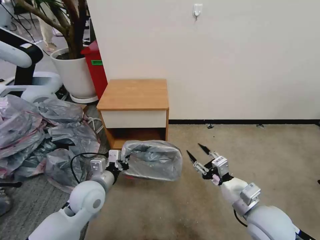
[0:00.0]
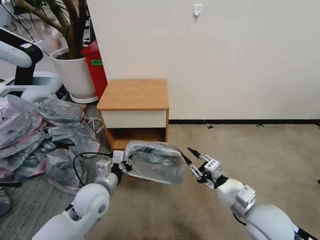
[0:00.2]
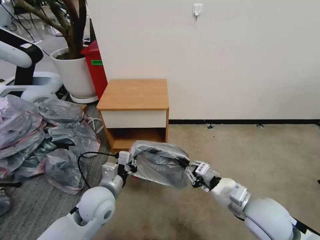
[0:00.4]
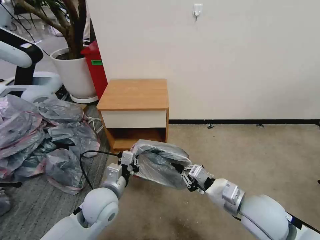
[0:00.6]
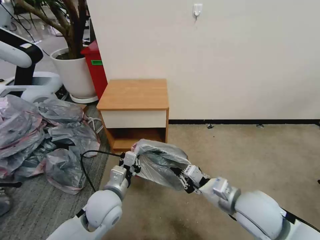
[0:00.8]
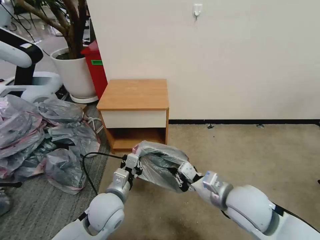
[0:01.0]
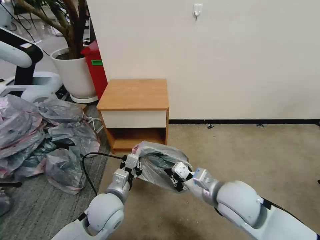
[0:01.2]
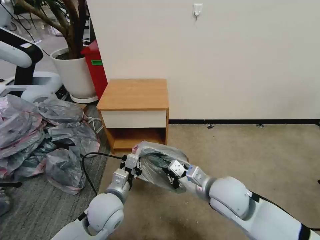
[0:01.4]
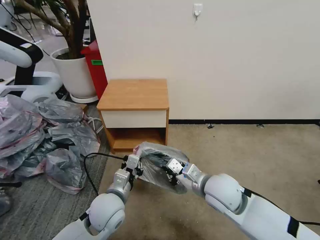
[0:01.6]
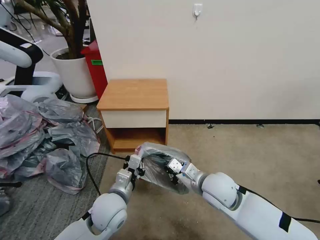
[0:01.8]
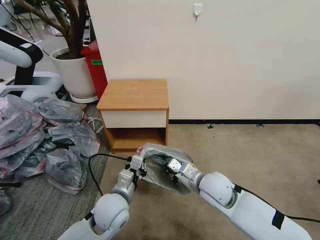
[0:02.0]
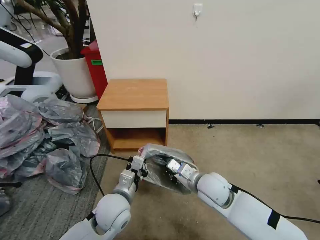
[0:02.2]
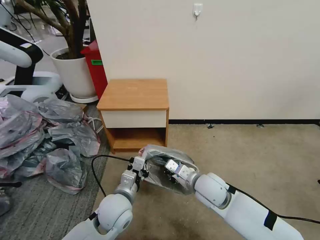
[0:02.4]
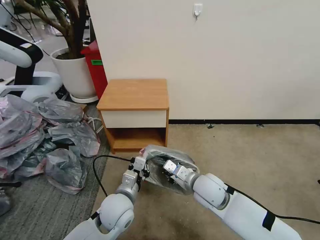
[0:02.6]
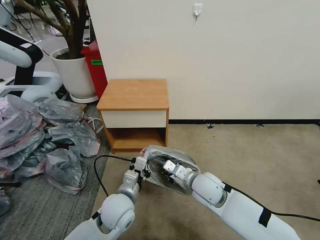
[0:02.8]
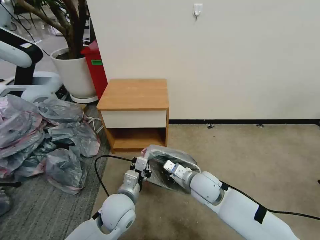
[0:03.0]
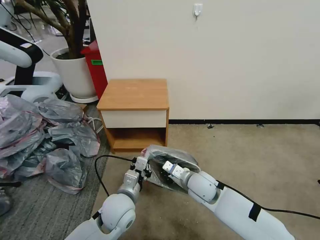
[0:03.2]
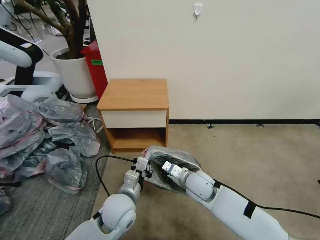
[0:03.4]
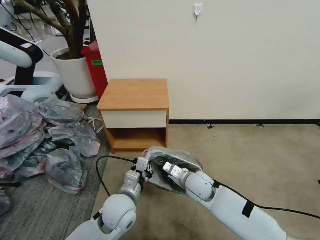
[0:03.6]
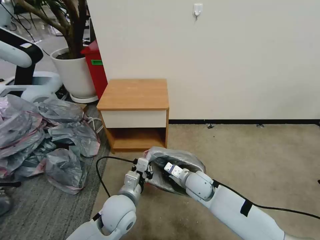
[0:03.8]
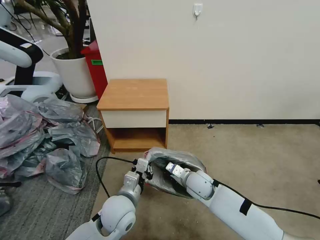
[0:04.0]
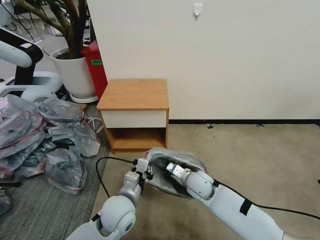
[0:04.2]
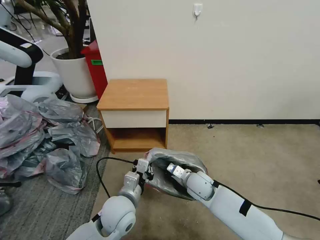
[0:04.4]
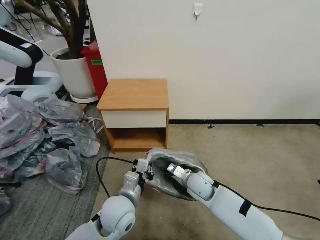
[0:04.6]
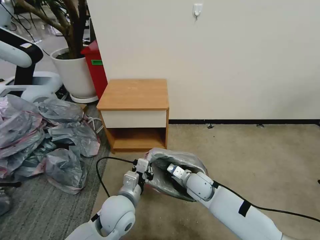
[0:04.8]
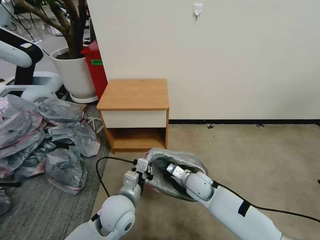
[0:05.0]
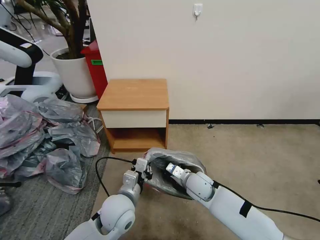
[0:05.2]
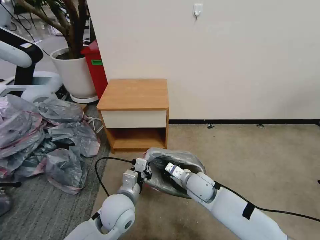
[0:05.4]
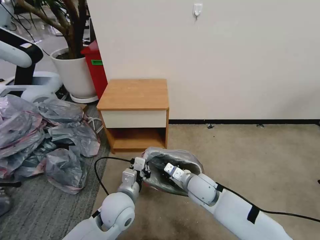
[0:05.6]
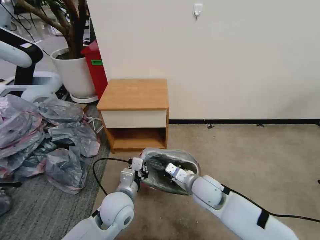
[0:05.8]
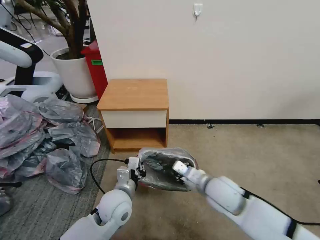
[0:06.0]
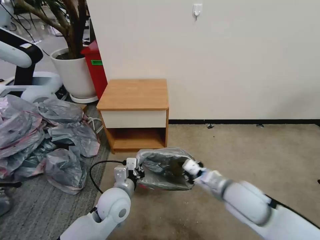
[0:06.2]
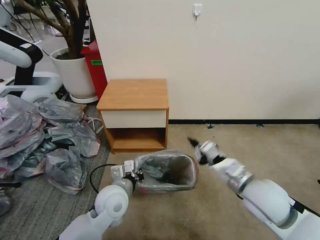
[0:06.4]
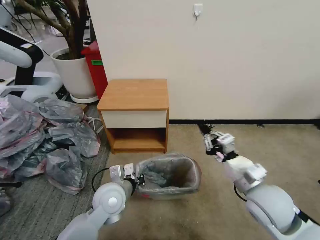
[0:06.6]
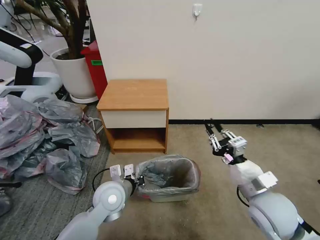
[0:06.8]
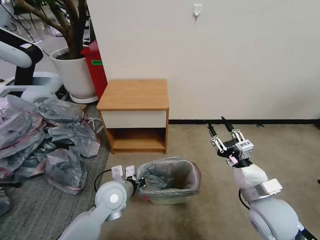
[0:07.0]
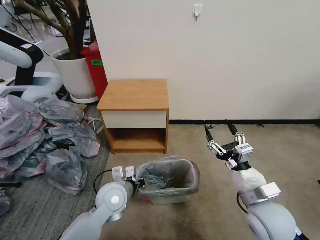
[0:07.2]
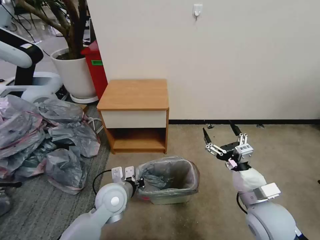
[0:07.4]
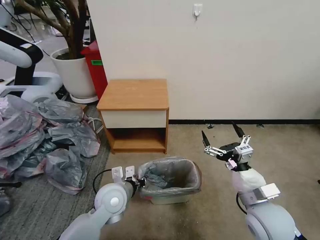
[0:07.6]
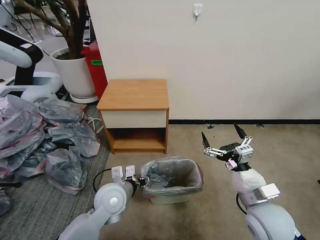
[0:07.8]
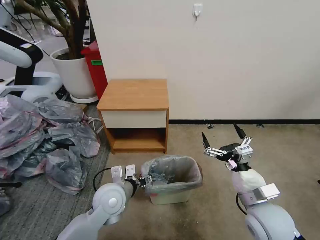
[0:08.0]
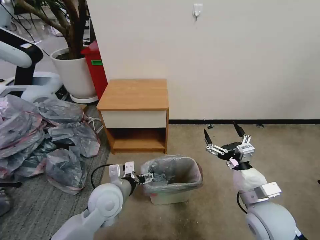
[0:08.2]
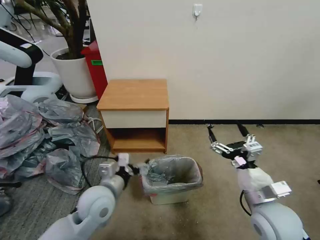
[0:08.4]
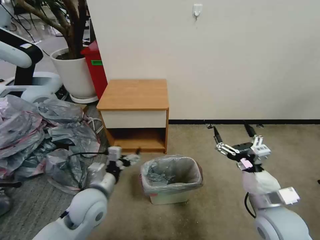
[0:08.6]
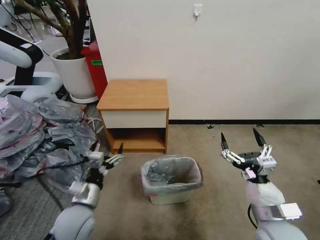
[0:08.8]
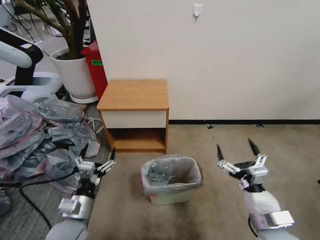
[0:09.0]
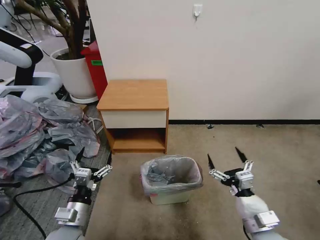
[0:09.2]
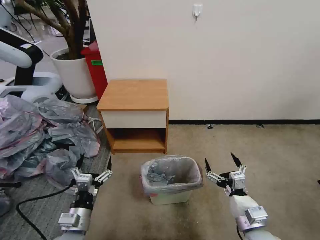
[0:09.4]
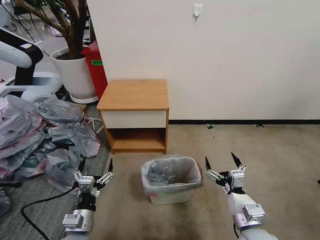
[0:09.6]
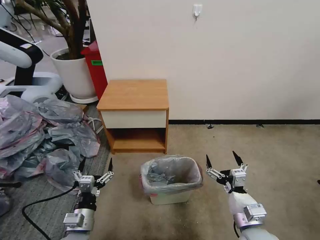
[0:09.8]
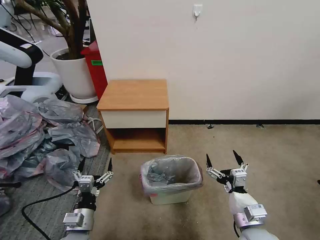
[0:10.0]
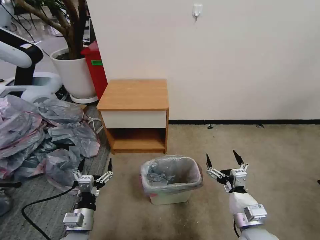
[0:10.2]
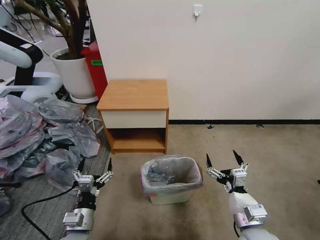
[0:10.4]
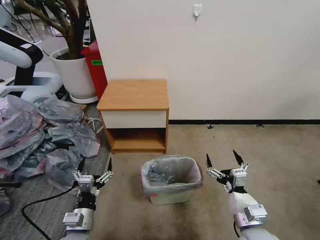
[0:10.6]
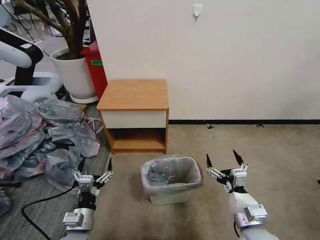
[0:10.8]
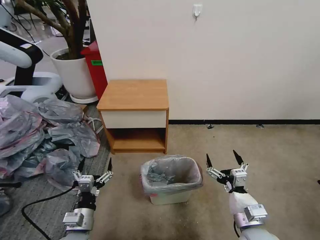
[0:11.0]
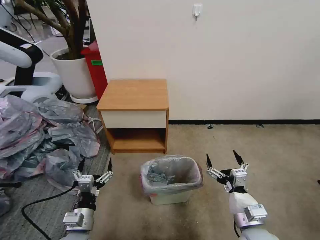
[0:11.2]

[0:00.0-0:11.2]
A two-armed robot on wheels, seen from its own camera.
Task of the whole recording: Pick up the garbage bag from the table and place it over the trash can.
0:00.0 to 0:01.6: The left gripper travels to the right by approximately 5 cm; the right gripper moves to the left and forward, some 15 cm, and closes.
0:01.6 to 0:03.2: The right gripper moves downward, some 10 cm.
0:03.2 to 0:04.8: The right gripper heads downward, covering about 5 cm.
0:04.8 to 0:06.4: The right gripper moves upward, to the right and backward, about 20 cm.
0:06.4 to 0:08.0: The left gripper opens, while the right gripper ends up approximately 5 cm from where it was, and opens its fingers.
0:08.0 to 0:09.6: The left gripper moves backward, to the left and downward, some 15 cm. Meanwhile the right gripper shifts some 5 cm downward.
0:09.6 to 0:11.2: The two grippers keep their place.
